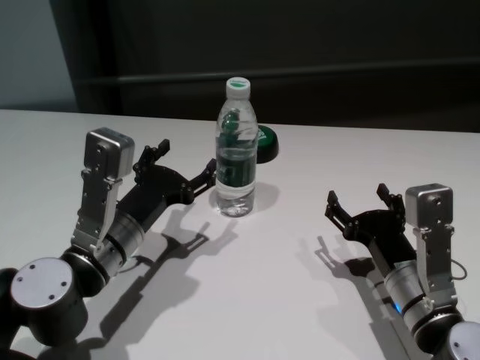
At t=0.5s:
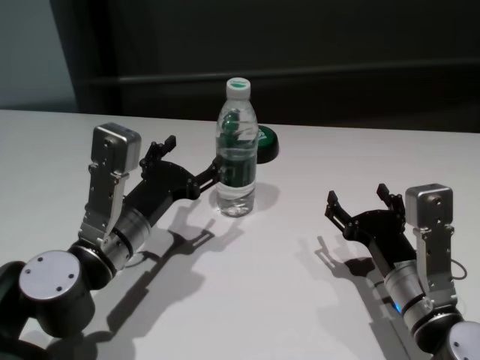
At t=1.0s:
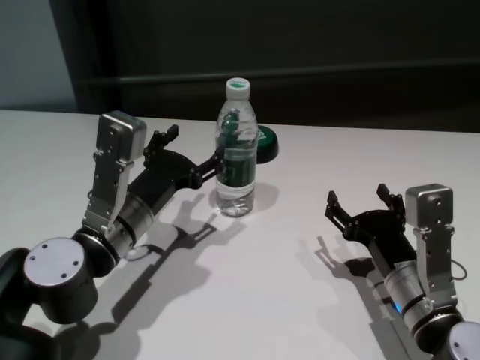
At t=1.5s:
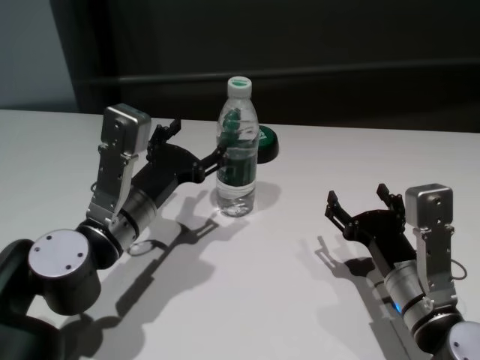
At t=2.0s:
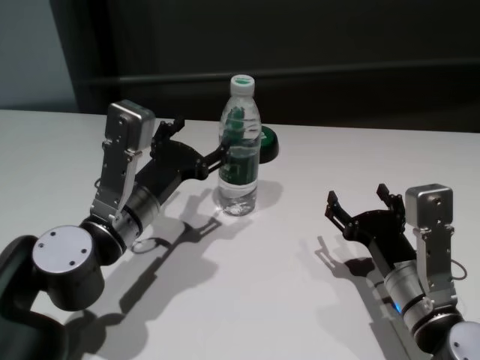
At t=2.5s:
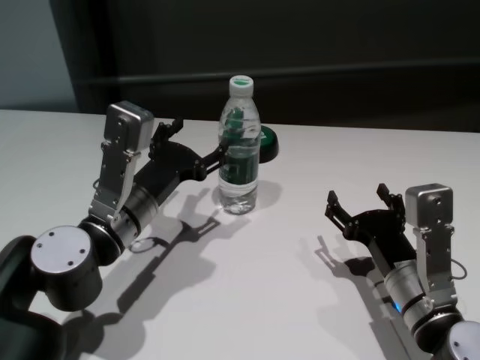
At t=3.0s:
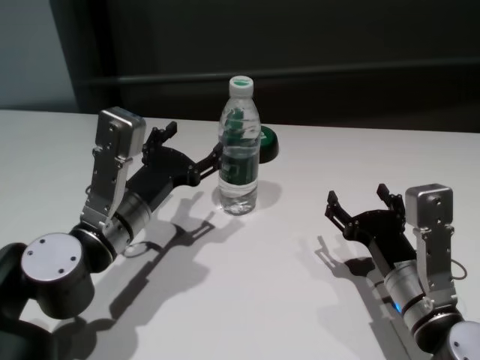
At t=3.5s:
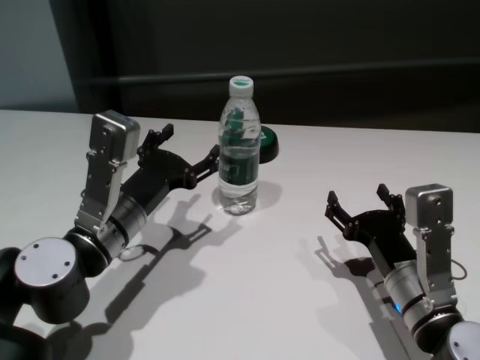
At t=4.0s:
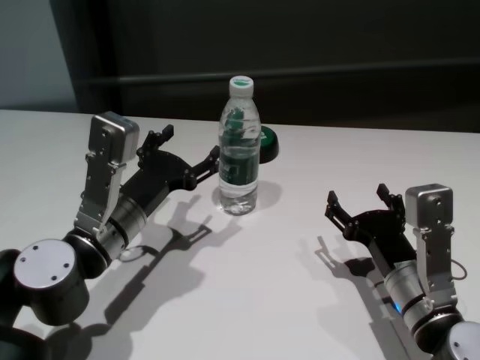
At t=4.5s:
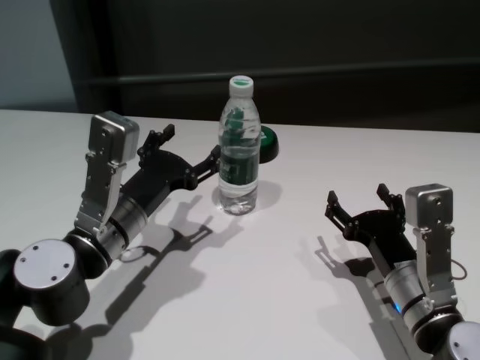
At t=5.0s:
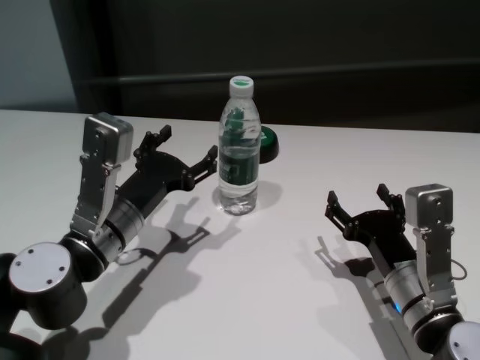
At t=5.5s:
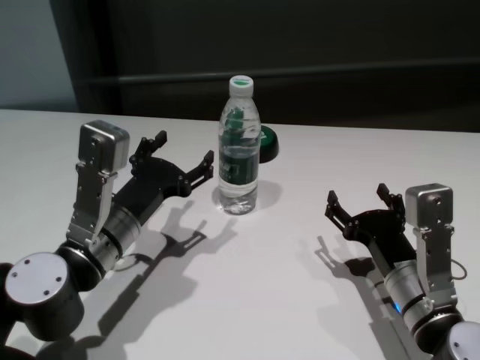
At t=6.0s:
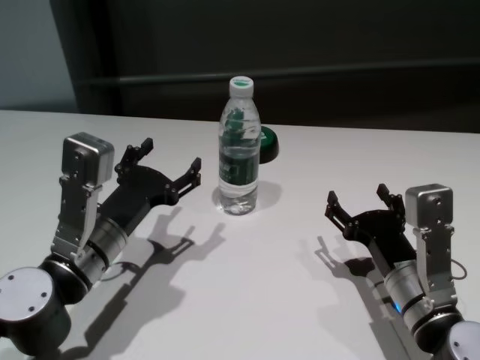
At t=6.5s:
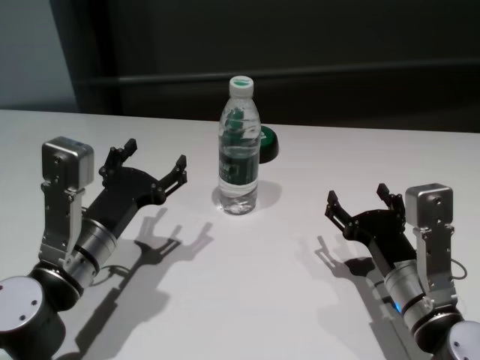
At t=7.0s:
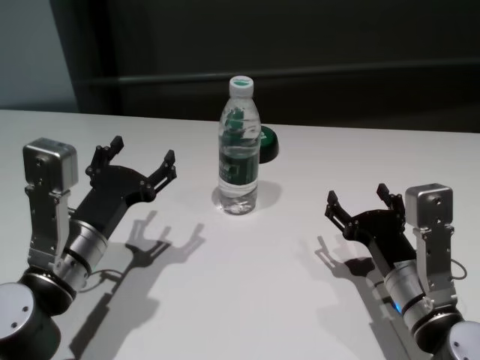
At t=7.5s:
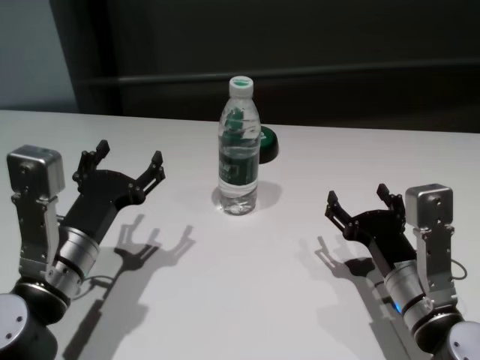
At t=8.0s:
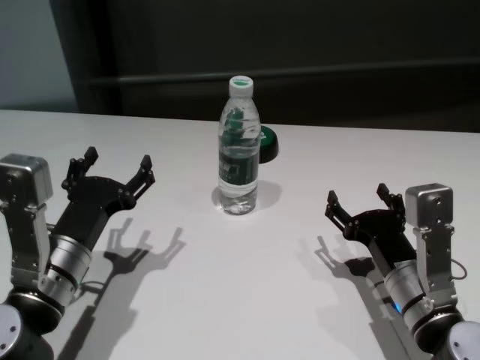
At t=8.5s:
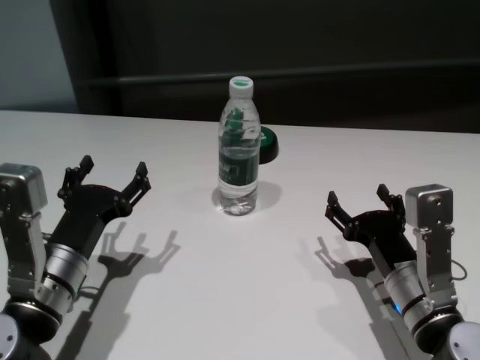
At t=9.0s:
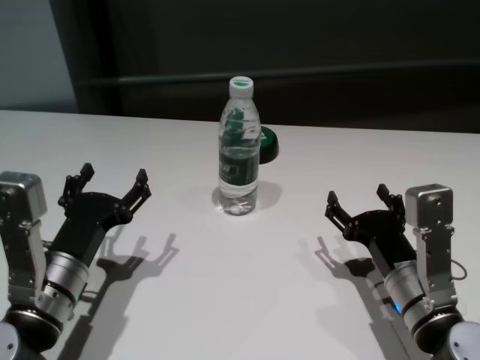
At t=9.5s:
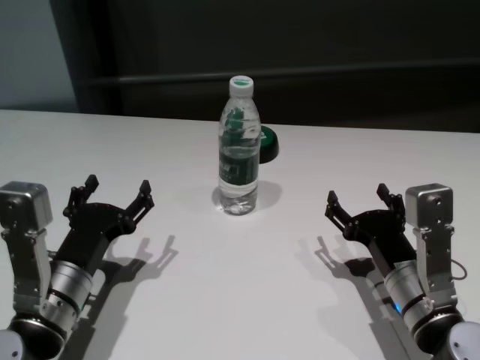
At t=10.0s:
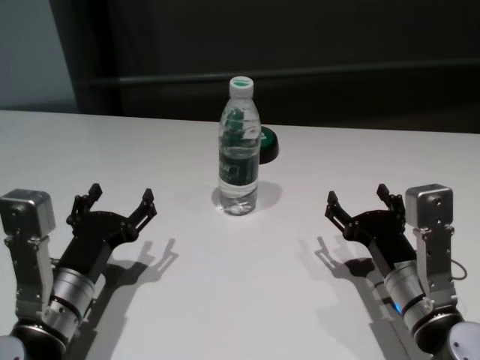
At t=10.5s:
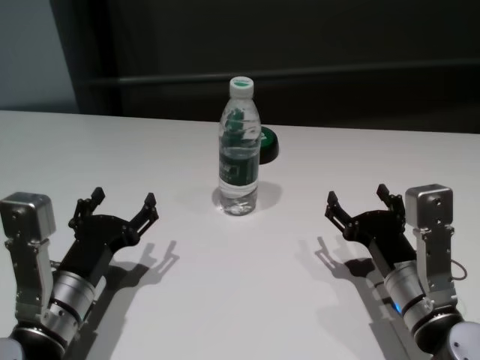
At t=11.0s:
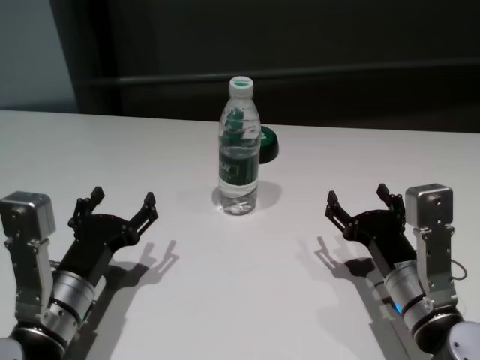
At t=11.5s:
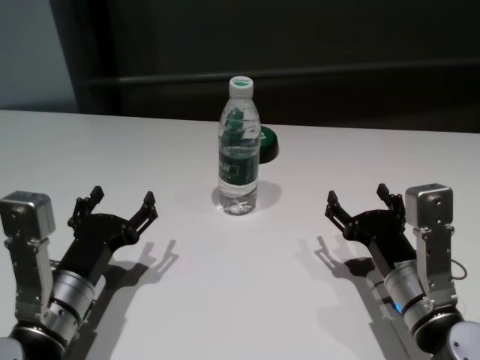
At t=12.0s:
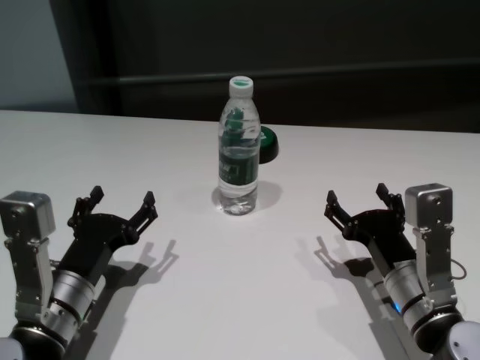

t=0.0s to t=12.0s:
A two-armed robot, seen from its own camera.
Task of the whole recording: return to a safe position after touching an obstacle with your arm on the white table.
Step, t=0.0s to t=5.0s: Touch the bottle with left gripper.
